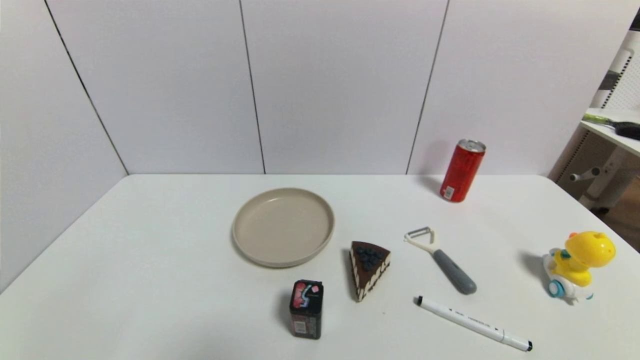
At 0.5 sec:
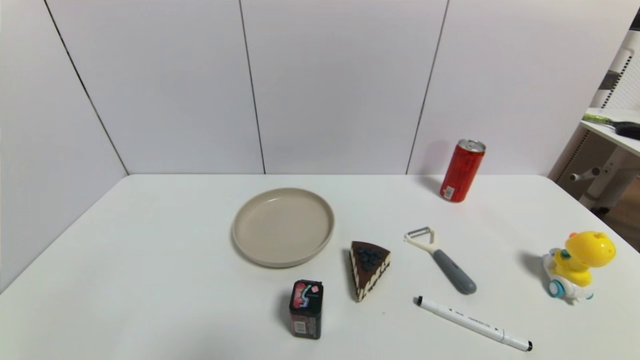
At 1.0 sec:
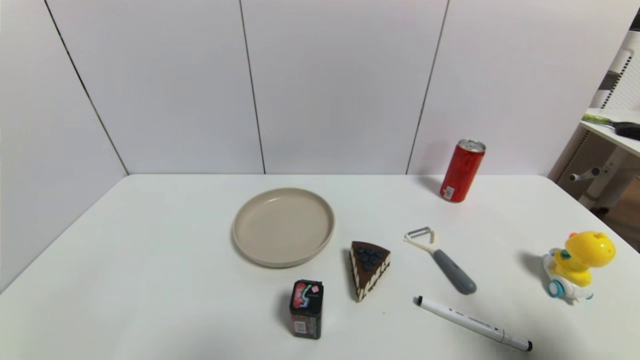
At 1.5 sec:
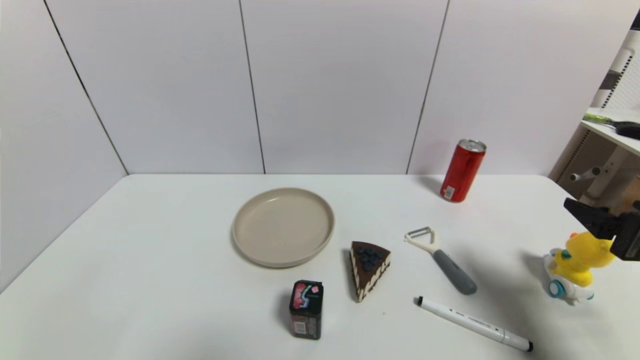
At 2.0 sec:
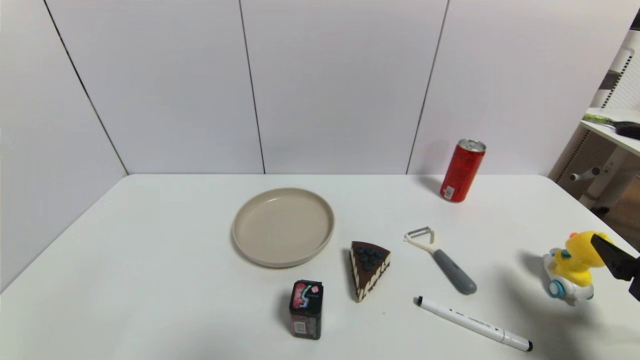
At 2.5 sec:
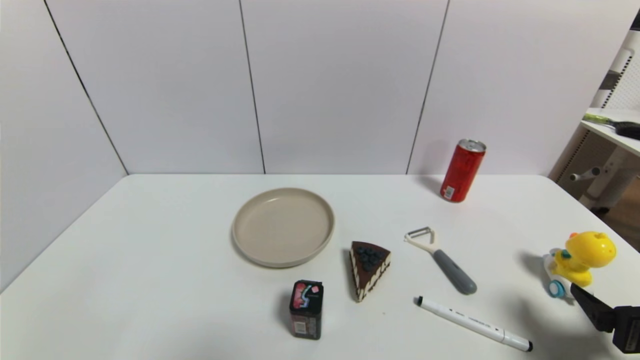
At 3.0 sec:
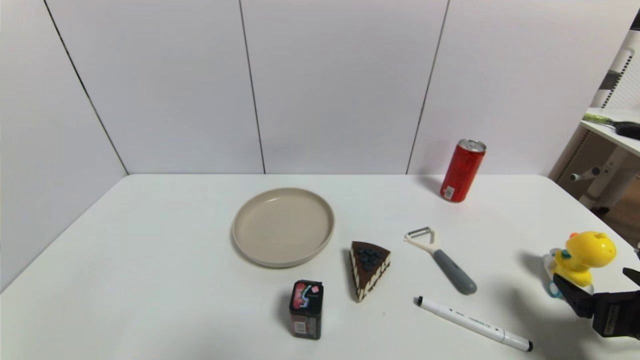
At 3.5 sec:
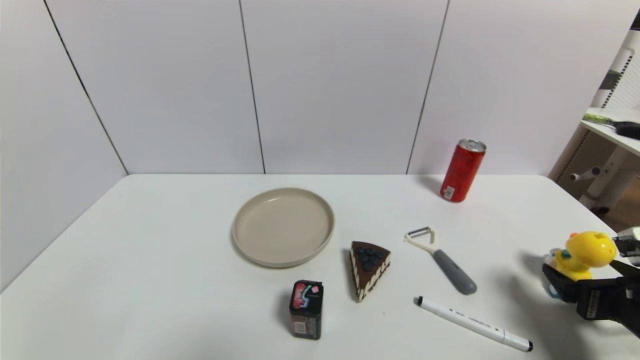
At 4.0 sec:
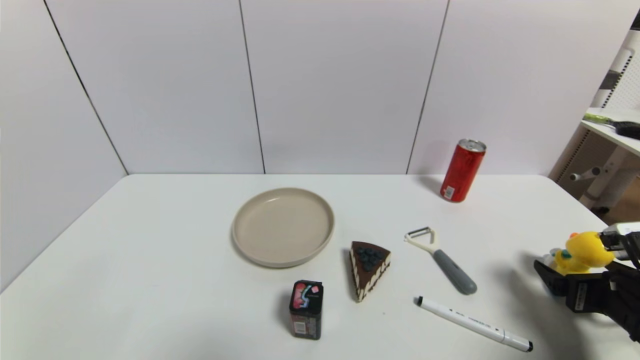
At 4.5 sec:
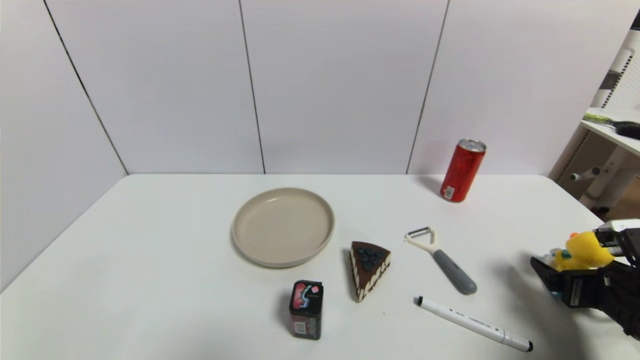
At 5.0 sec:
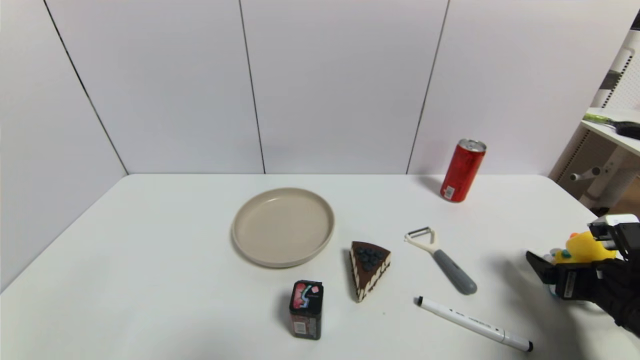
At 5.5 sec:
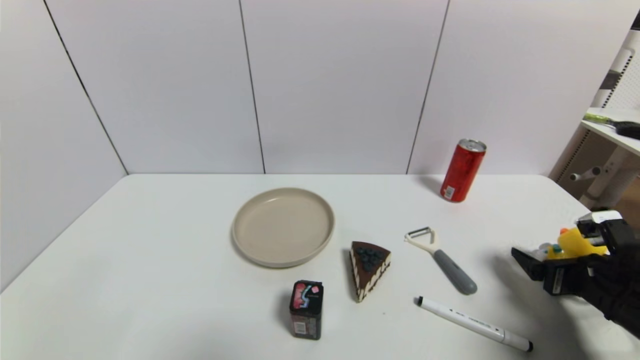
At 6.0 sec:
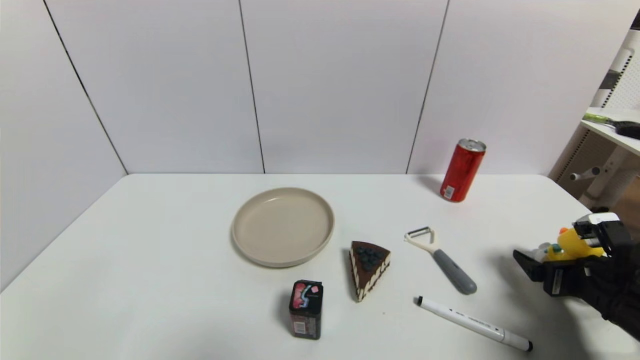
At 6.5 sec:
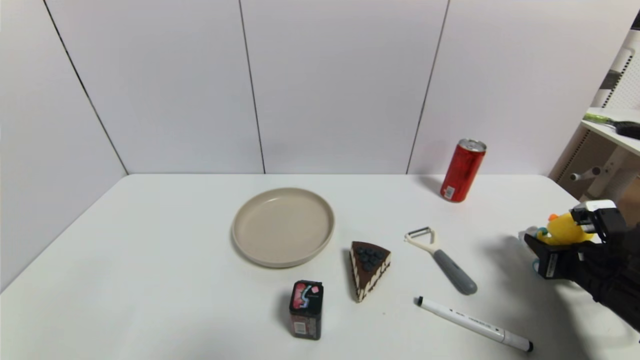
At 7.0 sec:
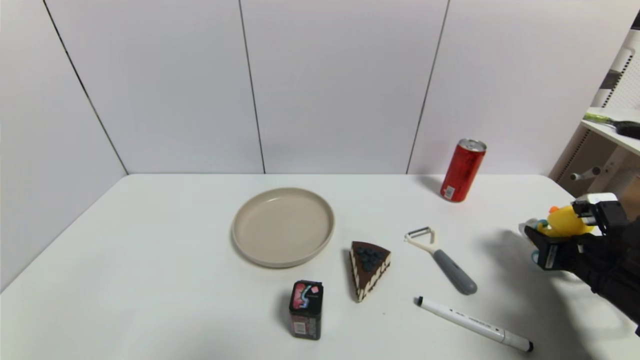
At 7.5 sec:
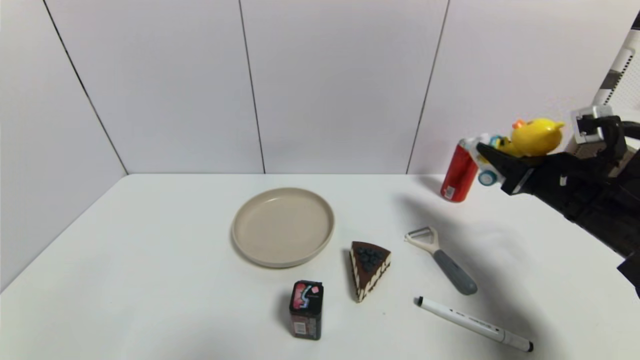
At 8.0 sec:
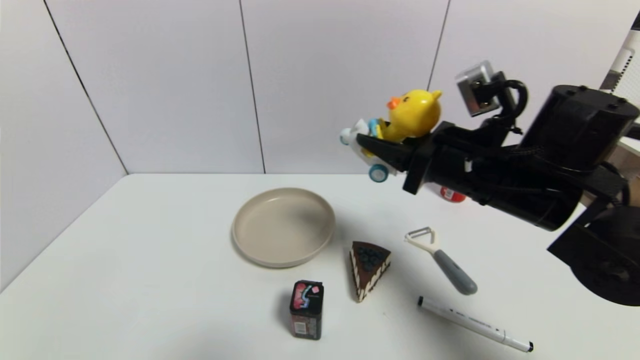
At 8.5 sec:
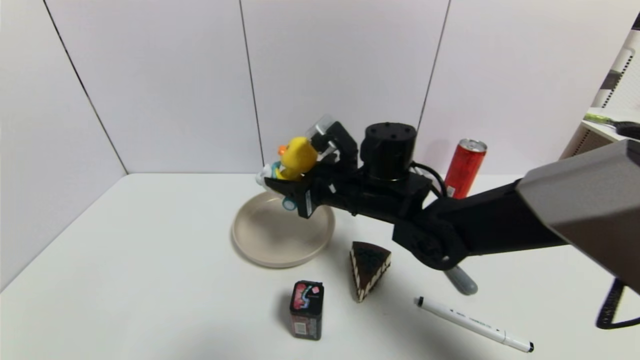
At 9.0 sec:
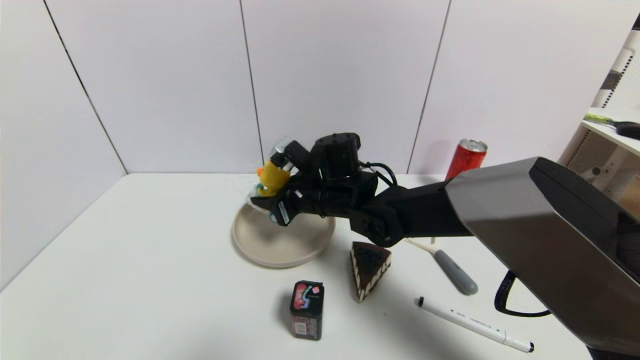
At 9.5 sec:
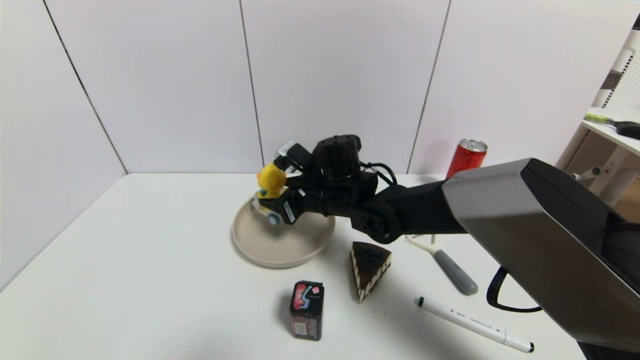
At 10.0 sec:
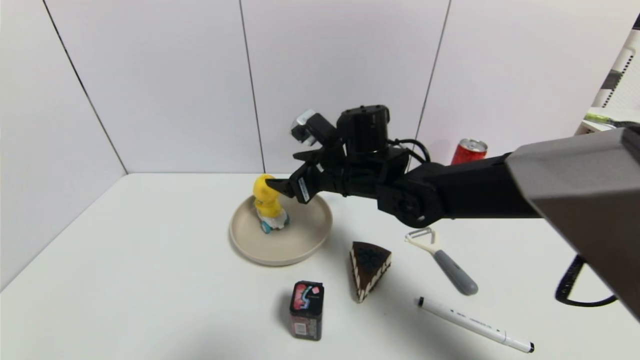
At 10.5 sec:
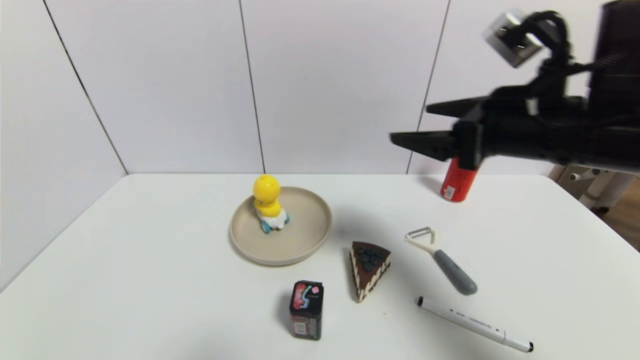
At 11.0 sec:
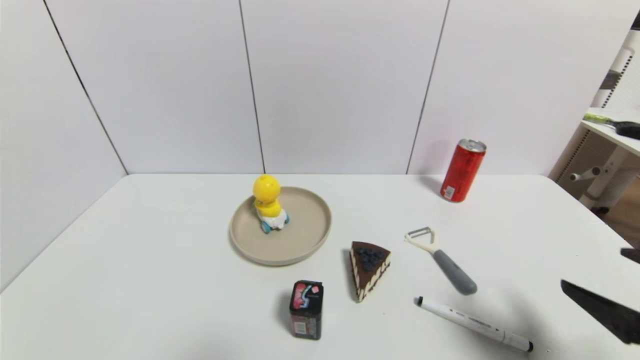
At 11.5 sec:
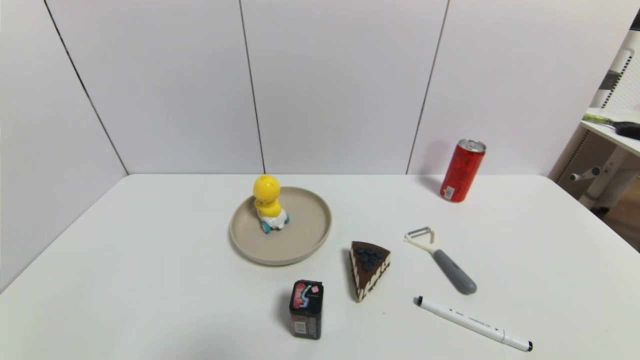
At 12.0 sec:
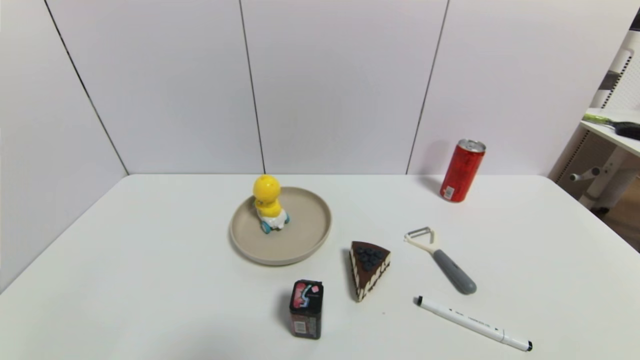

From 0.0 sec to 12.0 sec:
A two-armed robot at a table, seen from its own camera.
Task of the whole recording: use a gripper to pick the target object and place on the brown plate.
Step, from 0.0 sec to 6.5 sec: Grasp the duck toy with the right gripper.
Step, from 7.0 sec to 10.0 sec: Place the duck toy on the brown plate with the right gripper.
From 0.0 sec to 2.0 sec: The right gripper heads forward and upward, covering some 15 cm.
From 2.0 sec to 4.0 sec: The right gripper goes some 10 cm downward and forward.
From 4.0 sec to 6.0 sec: There are only small adjustments of the grippers.
From 6.0 sec to 8.0 sec: The right gripper is displaced to the left and upward by roughly 25 cm, and closes.
From 8.0 sec to 10.0 sec: The right gripper shifts some 15 cm to the left and forward, and opens its fingers.
From 10.0 sec to 12.0 sec: The right gripper heads backward and to the right, covering approximately 50 cm.
